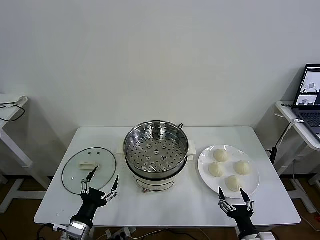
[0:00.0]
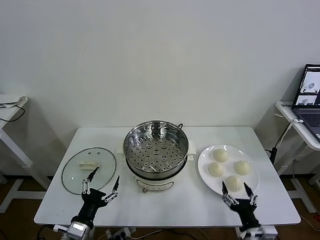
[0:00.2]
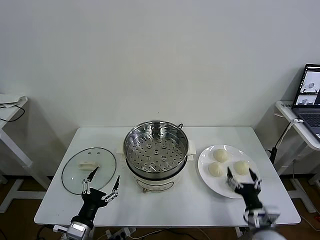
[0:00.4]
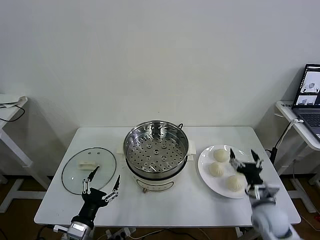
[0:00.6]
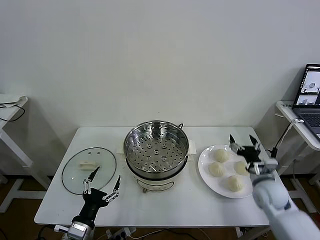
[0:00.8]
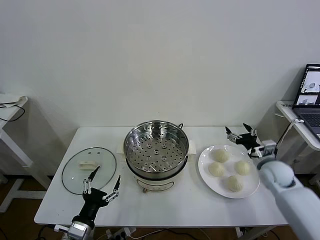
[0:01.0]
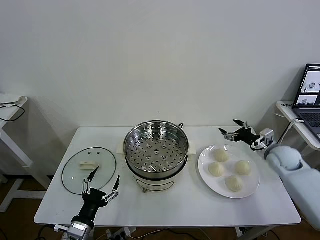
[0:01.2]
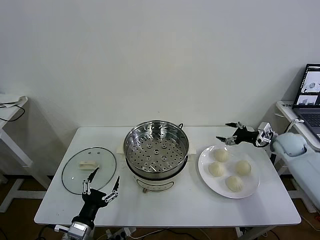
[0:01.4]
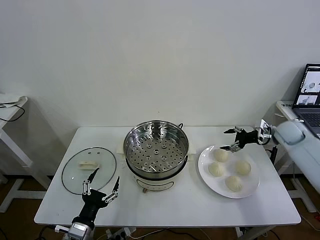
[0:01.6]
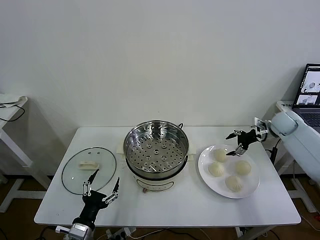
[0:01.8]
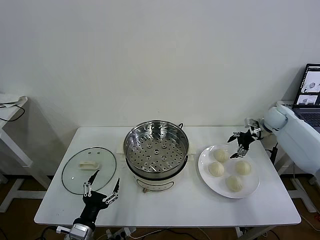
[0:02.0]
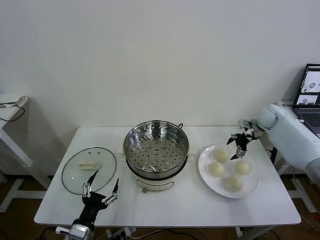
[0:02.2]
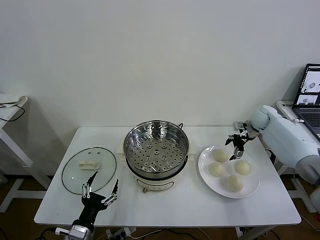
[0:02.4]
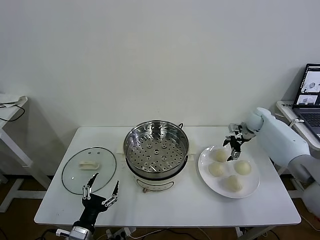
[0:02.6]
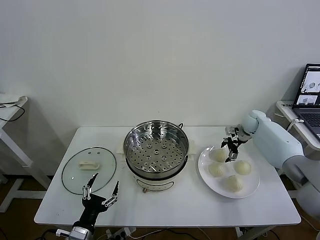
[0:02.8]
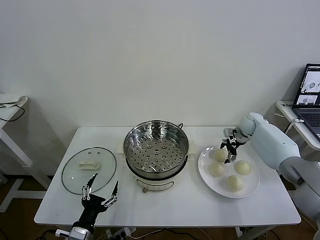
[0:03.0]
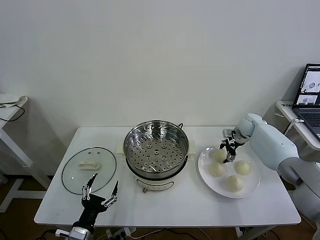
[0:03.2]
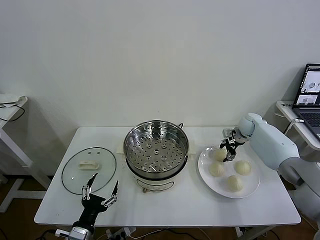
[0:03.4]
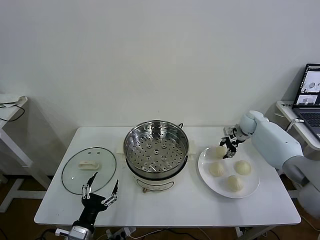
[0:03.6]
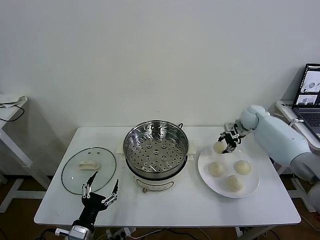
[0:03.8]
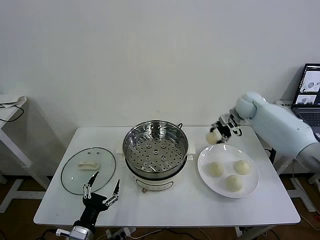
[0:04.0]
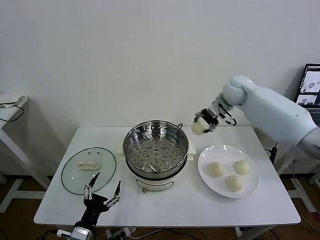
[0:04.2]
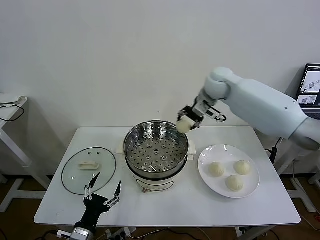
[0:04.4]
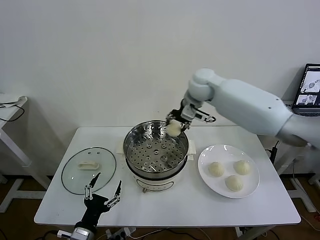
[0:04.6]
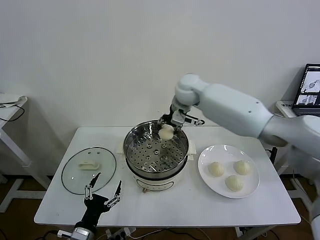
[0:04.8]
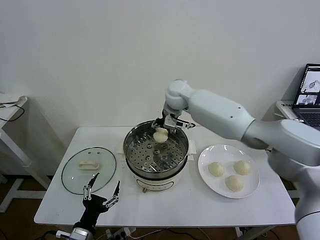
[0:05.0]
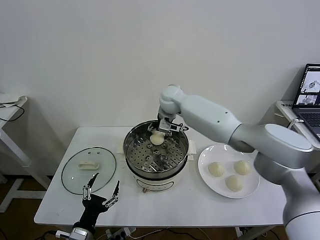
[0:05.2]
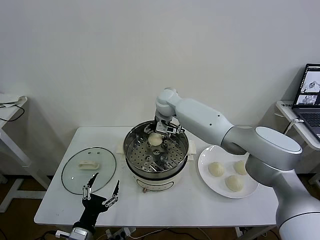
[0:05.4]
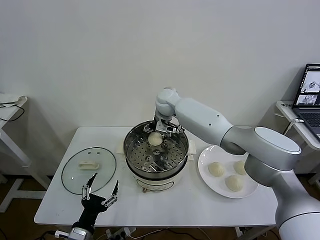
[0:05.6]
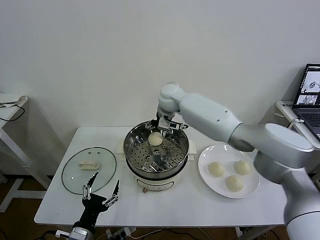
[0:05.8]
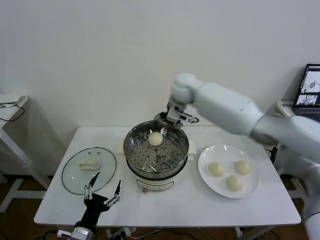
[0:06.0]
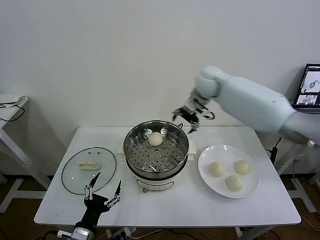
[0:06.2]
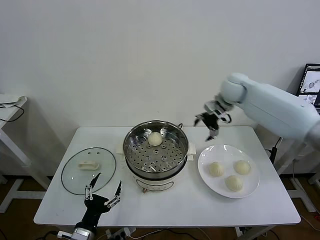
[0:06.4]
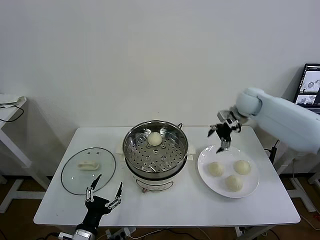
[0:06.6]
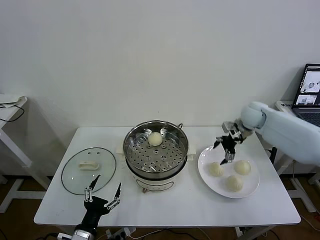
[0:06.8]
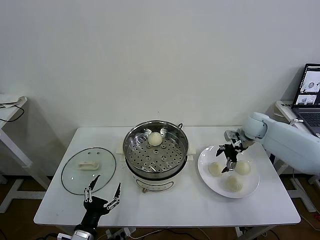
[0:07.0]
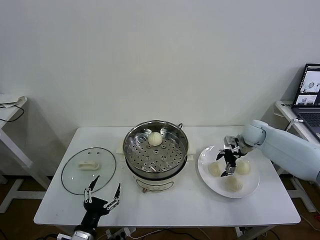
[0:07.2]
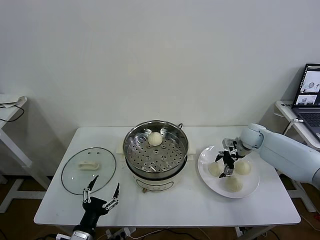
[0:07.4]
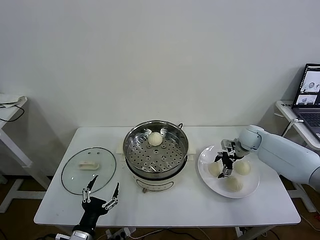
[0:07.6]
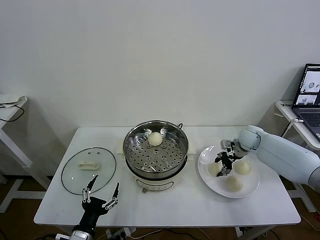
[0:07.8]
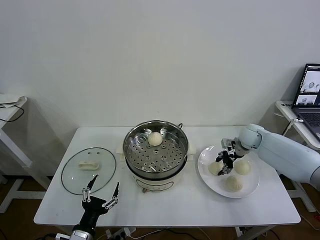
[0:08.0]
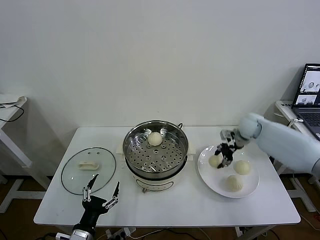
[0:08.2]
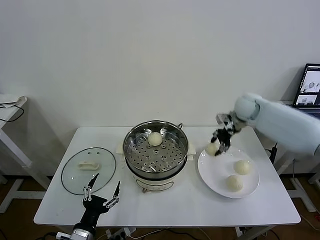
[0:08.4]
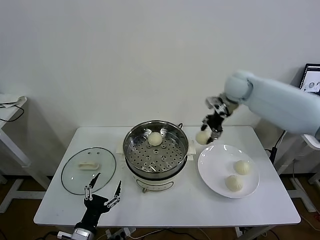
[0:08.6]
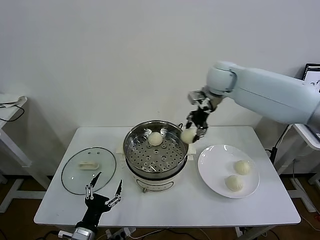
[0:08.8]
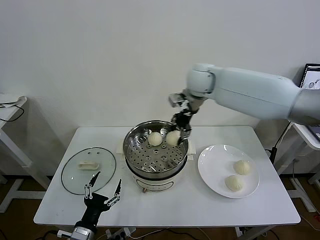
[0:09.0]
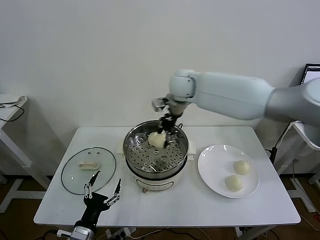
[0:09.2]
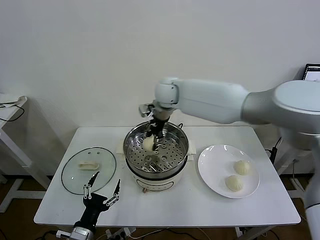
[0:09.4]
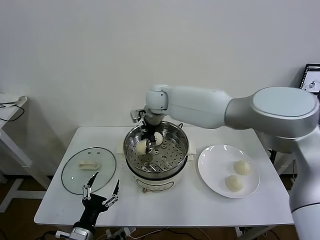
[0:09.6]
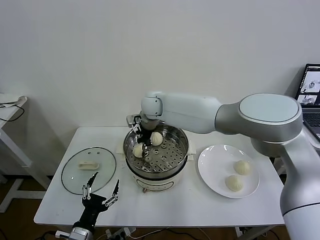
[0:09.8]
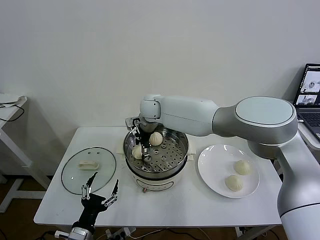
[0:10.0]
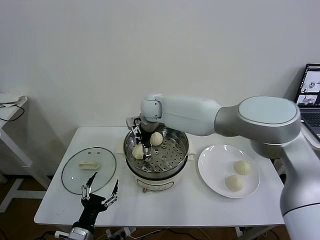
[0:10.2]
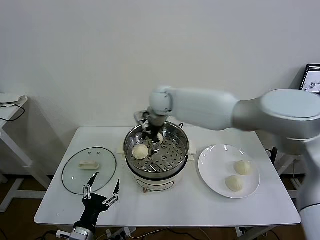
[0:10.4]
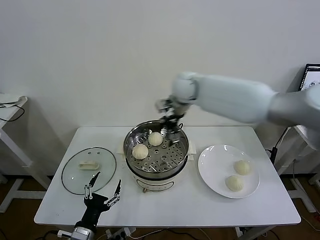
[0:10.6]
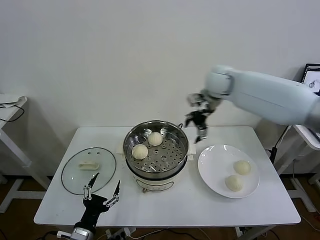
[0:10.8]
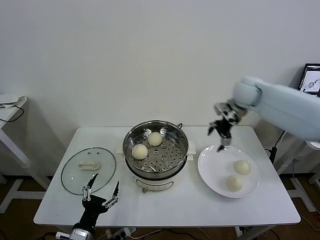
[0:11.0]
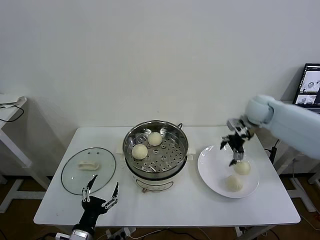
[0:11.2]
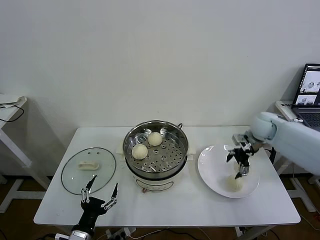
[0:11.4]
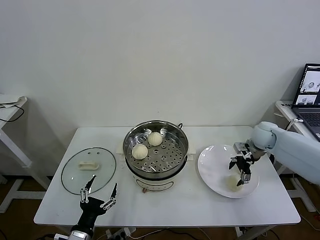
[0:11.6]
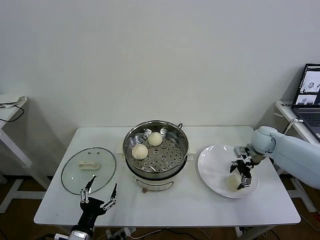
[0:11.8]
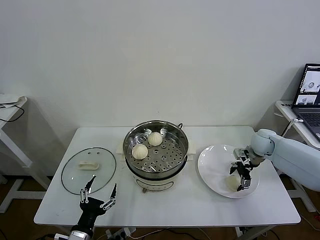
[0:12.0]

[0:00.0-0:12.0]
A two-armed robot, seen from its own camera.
Task of the whole recording: take steamed baozi put them in steamer then cover it.
Step, 0:00.0 to 0:03.4: Grasp the baozi in the plate with right gripper.
Step, 0:03.6 to 0:05.6: Place the baozi on the steamer with right gripper.
Step, 0:05.8 to 0:07.8: Grasp the baozi in the plate with right gripper.
Step, 0:08.0 to 0:10.2: Place the baozi on the steamer with right gripper.
0:01.6 to 0:03.0: The right gripper shifts some 10 cm to the left, downward and forward.
0:03.0 to 0:04.4: The right gripper travels to the left and upward by some 35 cm, and closes up.
0:04.4 to 0:06.0: The right gripper travels to the left and back again, roughly 10 cm each way, and opens its fingers.
0:06.0 to 0:07.6: The right gripper is displaced downward and to the right by approximately 30 cm, and closes its fingers.
0:07.6 to 0:09.0: The right gripper travels to the left and upward by roughly 35 cm, and closes up.
0:09.0 to 0:10.4: The right gripper goes to the left and returns, roughly 10 cm each way, and opens its fingers.
0:10.4 to 0:12.0: The right gripper shifts approximately 40 cm to the right and downward.

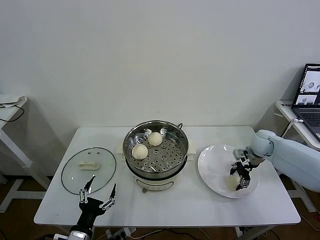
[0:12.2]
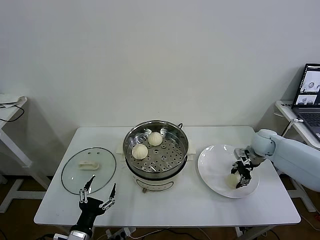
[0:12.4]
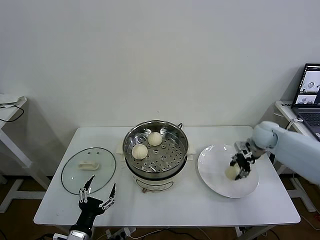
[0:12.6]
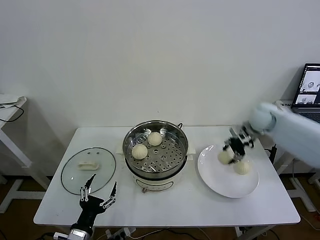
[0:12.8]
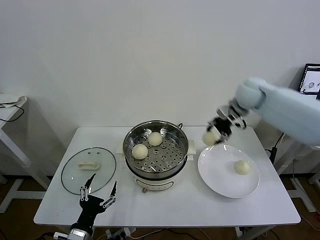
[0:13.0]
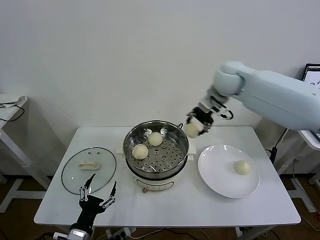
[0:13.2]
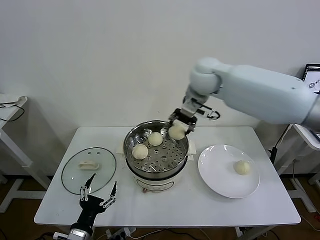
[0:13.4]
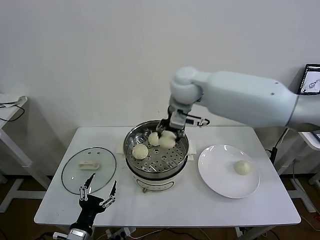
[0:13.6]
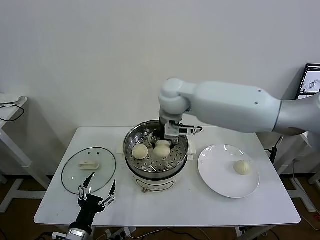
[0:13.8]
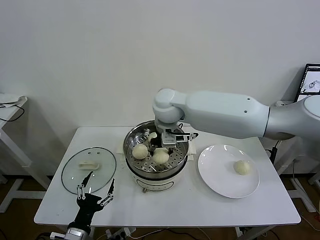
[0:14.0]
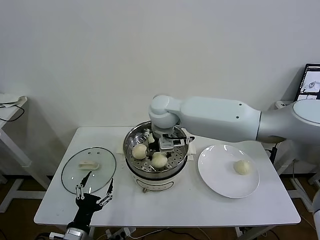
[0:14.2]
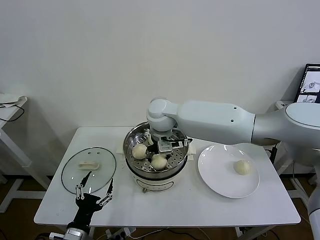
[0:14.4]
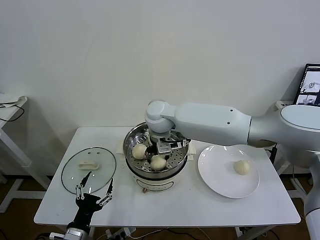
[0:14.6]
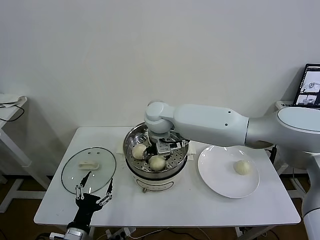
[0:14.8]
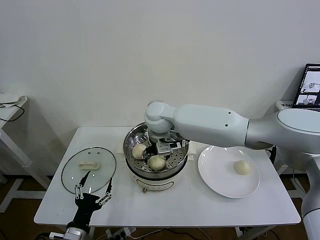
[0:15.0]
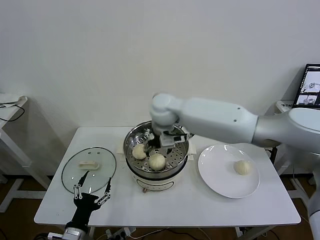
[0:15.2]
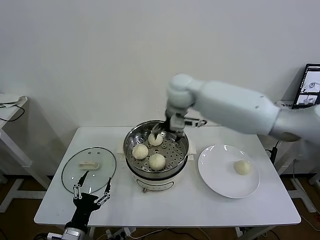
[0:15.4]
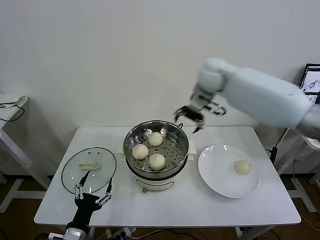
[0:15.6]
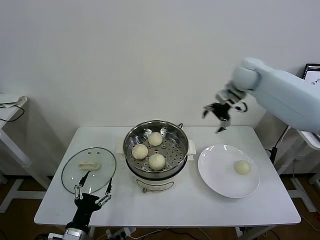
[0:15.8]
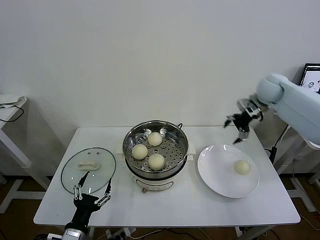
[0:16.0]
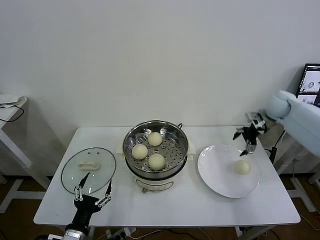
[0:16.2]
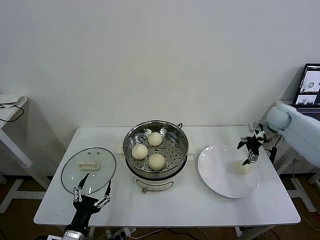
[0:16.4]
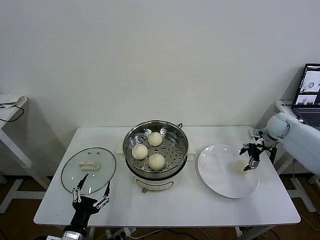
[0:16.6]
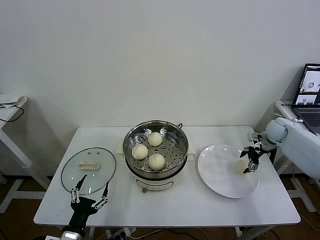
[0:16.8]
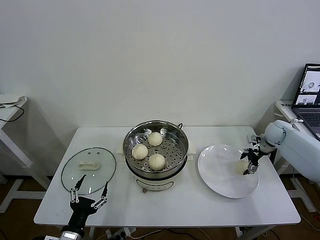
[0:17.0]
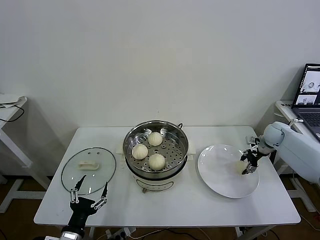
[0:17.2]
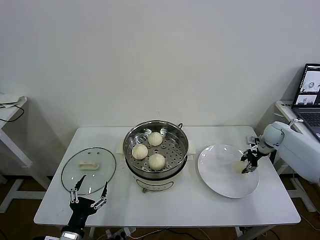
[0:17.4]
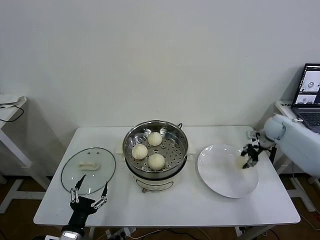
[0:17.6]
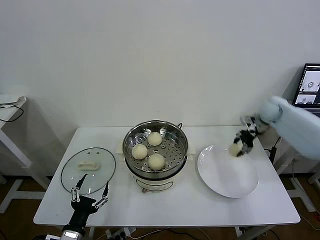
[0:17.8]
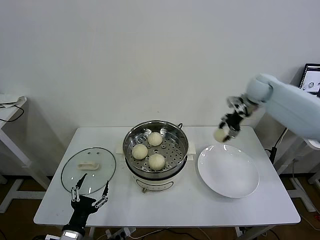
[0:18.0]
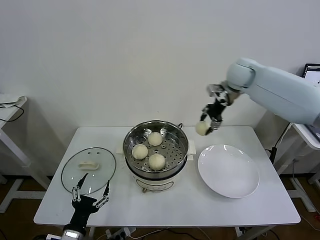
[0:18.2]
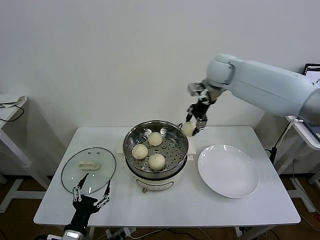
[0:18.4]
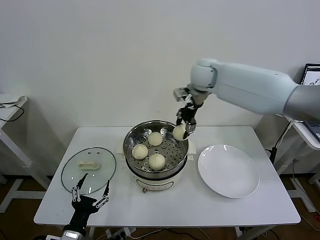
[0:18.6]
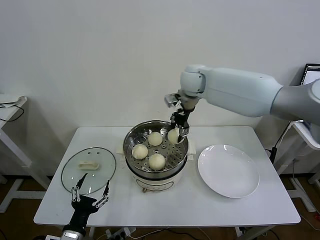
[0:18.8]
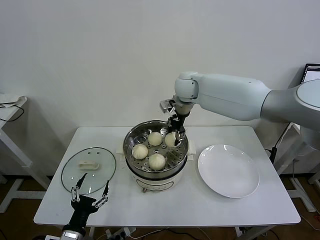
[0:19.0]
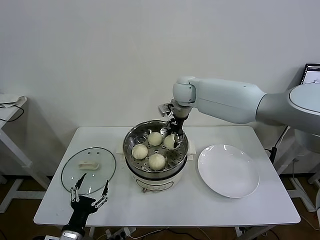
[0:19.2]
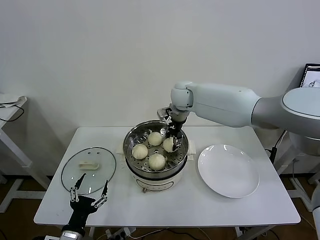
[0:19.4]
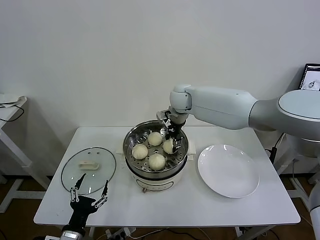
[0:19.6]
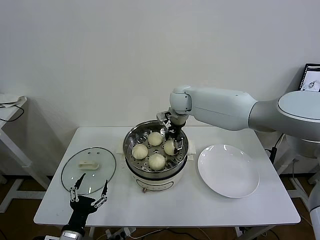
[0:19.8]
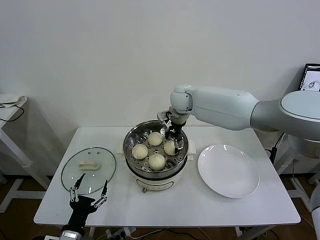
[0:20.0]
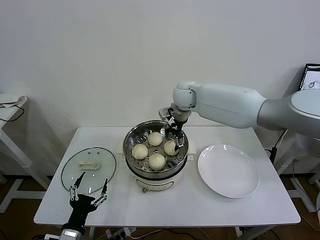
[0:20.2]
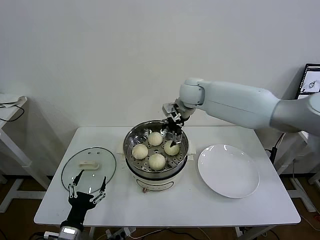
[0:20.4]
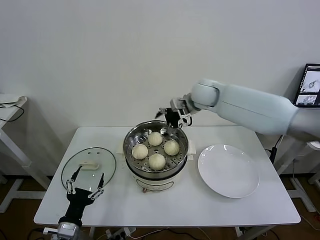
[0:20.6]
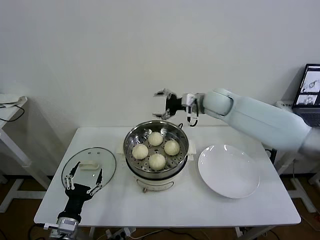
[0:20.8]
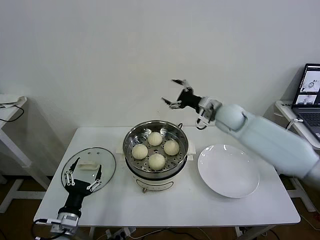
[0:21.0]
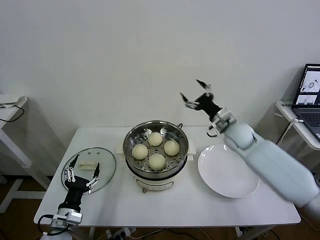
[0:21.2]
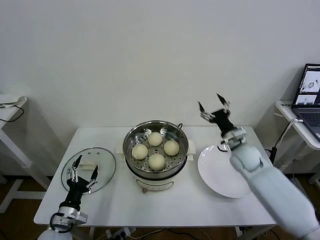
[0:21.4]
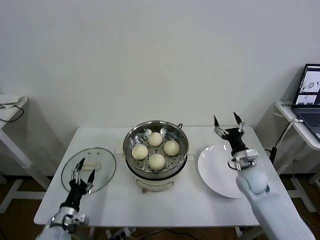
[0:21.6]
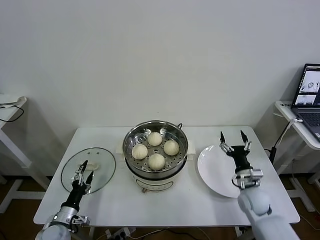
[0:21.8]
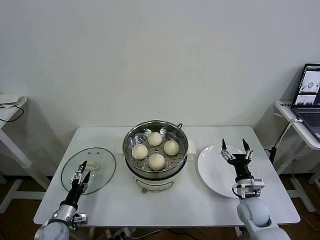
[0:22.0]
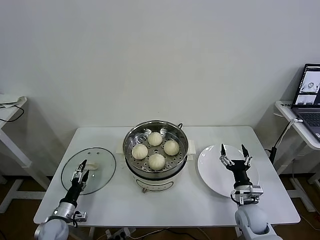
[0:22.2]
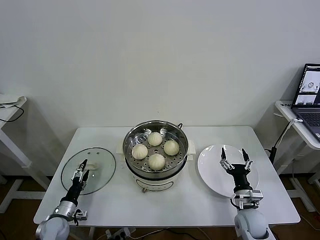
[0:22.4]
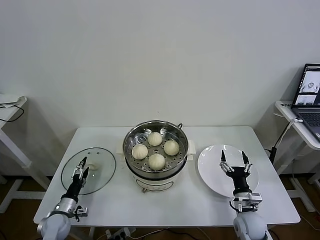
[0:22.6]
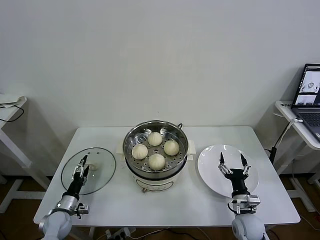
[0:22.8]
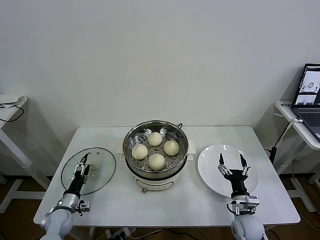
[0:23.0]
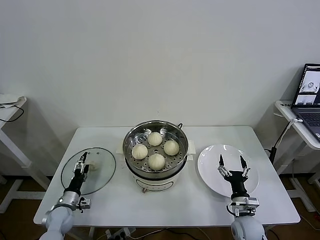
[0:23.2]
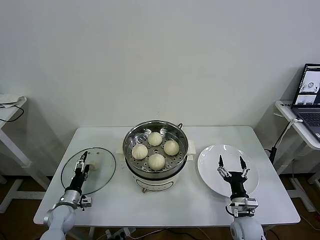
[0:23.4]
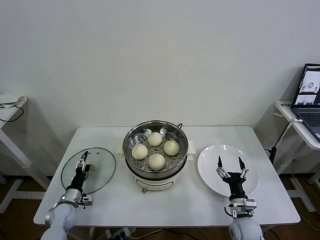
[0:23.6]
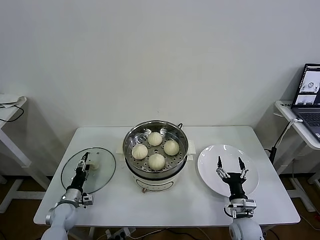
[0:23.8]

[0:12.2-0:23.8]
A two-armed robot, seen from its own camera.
Task of the whole recording: take steamed baozi put them in steamer then cover it.
Step, 0:12.6 to 0:15.2: Place the baozi on the steamer with right gripper.
Step, 0:15.4 to 0:17.4: Grasp the baozi in the plate with right gripper.
Step, 0:17.6 to 0:20.0: Place the baozi on the steamer with right gripper.
0:12.2 to 0:13.6: The right gripper goes approximately 40 cm to the left and upward.
0:13.6 to 0:15.0: The right gripper heads downward and to the left, covering approximately 10 cm, and opens.
0:15.0 to 0:16.6: The right gripper travels to the right by about 50 cm.
0:16.6 to 0:18.0: The right gripper travels upward and to the left by roughly 20 cm, and closes up.
0:18.0 to 0:19.4: The right gripper goes about 25 cm to the left.
0:19.4 to 0:21.0: The right gripper goes about 20 cm to the right and backward, and opens up.
0:21.0 to 0:22.4: The right gripper moves downward and backward, approximately 35 cm. The left gripper is displaced downward, to the left and forward by approximately 20 cm.
0:22.4 to 0:23.8: The left gripper moves forward, approximately 5 cm.
